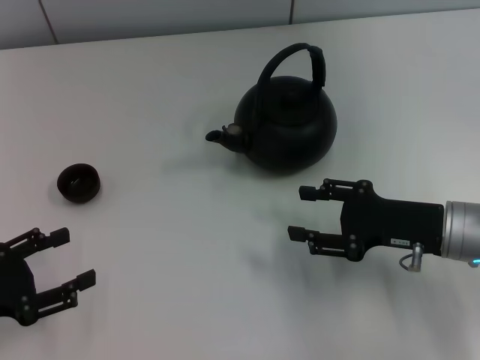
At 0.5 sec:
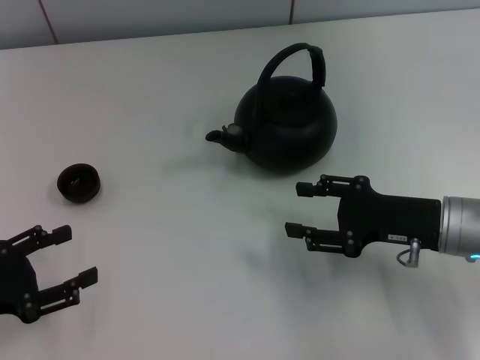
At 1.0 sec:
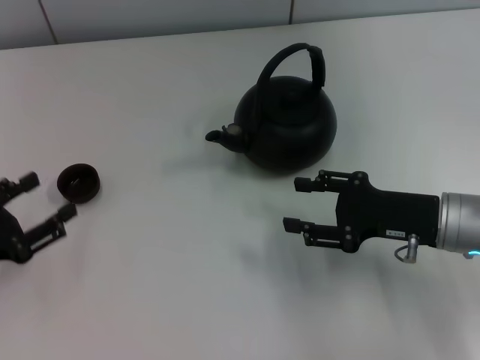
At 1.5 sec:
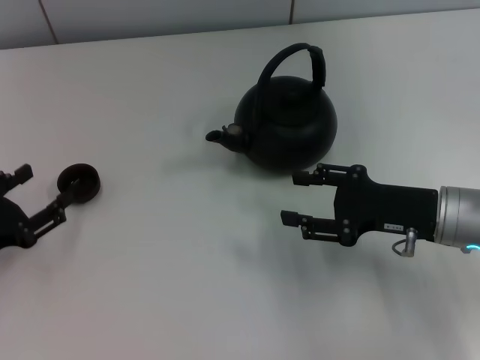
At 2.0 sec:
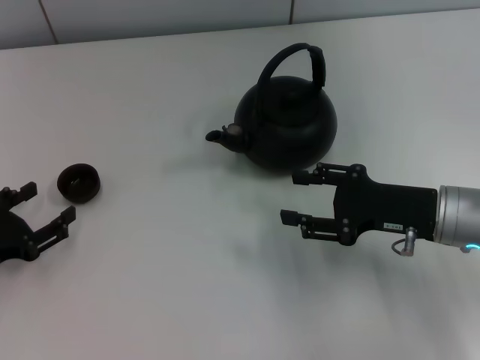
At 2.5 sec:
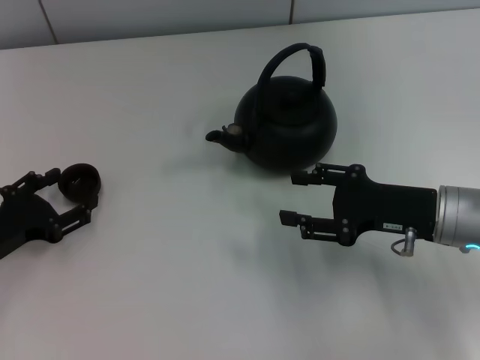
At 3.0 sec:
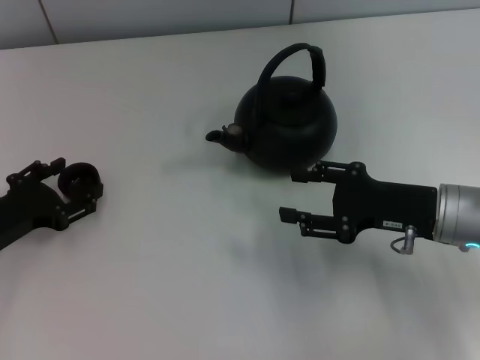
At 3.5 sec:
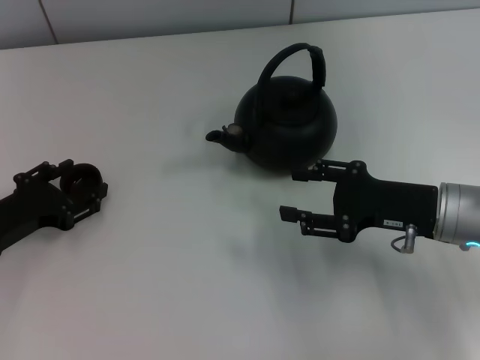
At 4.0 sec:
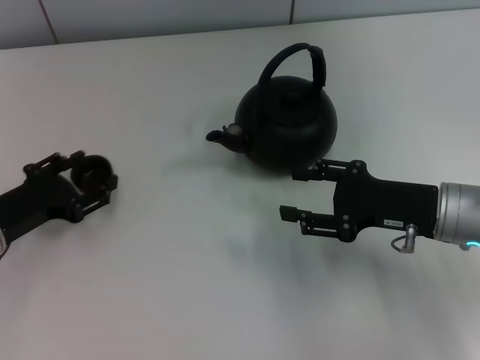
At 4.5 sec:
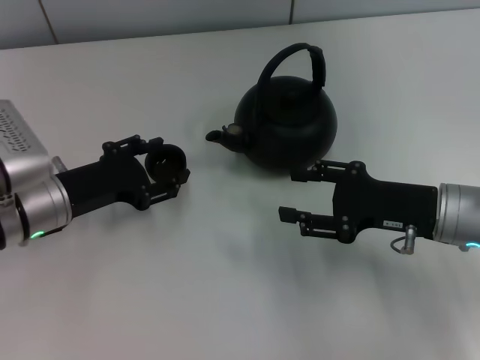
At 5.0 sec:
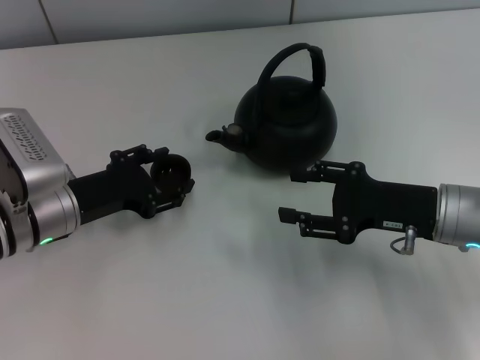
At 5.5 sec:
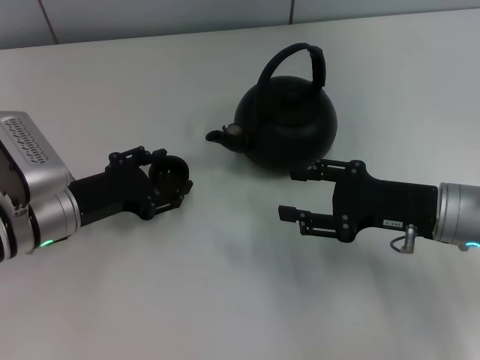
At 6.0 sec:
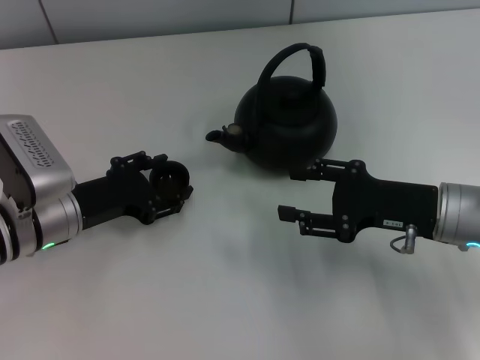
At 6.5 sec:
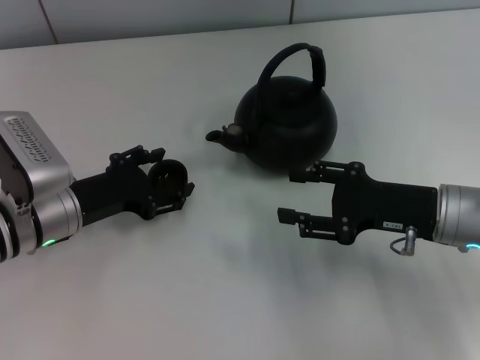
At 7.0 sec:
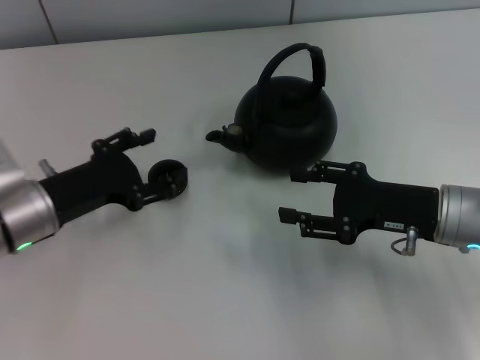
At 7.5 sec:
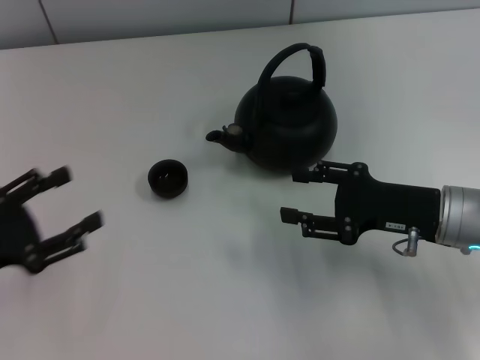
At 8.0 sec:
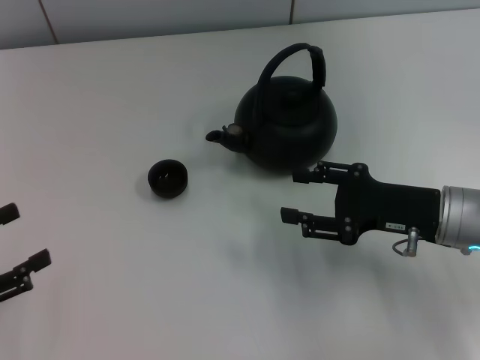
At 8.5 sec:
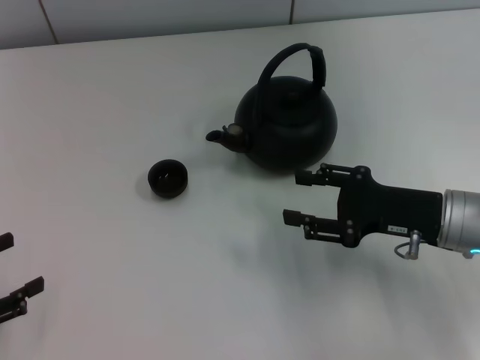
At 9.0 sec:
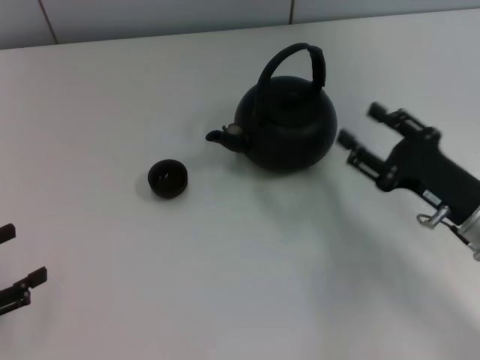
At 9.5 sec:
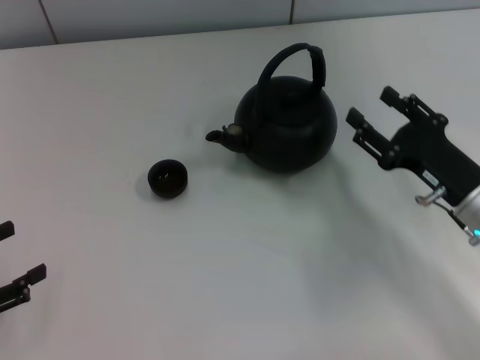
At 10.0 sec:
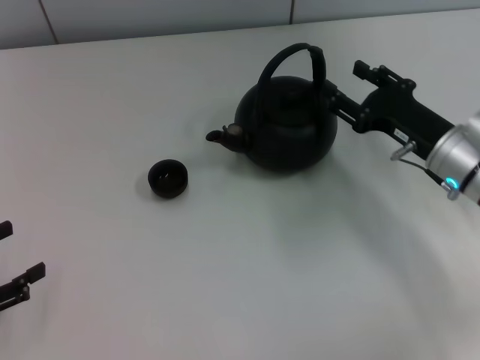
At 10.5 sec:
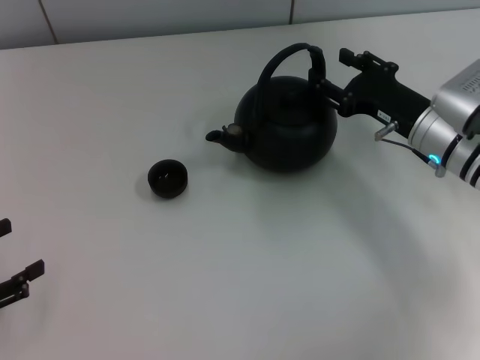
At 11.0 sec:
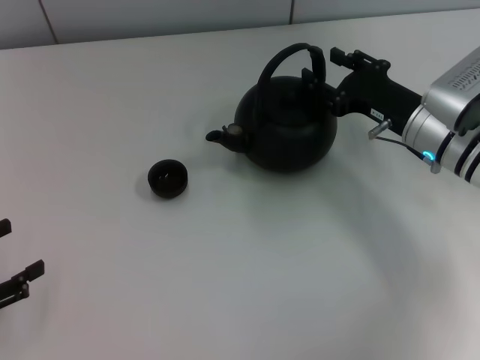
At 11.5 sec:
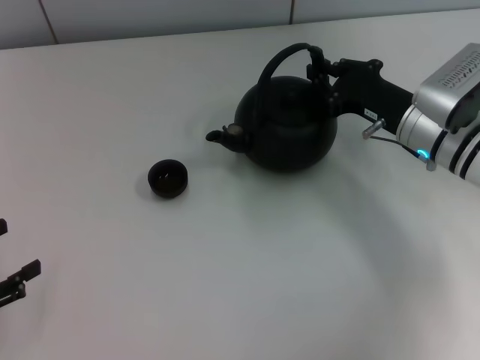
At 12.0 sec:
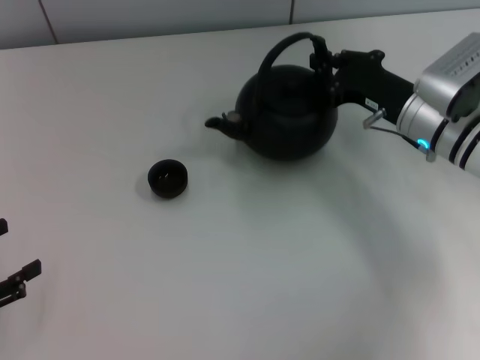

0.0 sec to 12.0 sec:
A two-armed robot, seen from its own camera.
Task of the whole recording: Grasp the handle of the teapot with one hand and pour tea into the teacup.
Step, 0.0 sec to 4.0 sec: Pick up the teacup with the left gripper.
Step, 4.5 sec to 7.0 sec: Place the teacup in the center of view with the left gripper.
2.0 sec to 4.0 sec: The left gripper ends up about 5 cm from where it was.
4.0 sec to 6.0 sec: The left gripper shifts approximately 5 cm to the right.
6.0 sec to 8.0 sec: The left gripper heads to the left and backward, covering roughly 20 cm.
8.0 sec to 10.0 sec: The right gripper travels forward by about 5 cm.
10.0 sec to 12.0 sec: The right gripper shifts by approximately 5 cm, and closes.

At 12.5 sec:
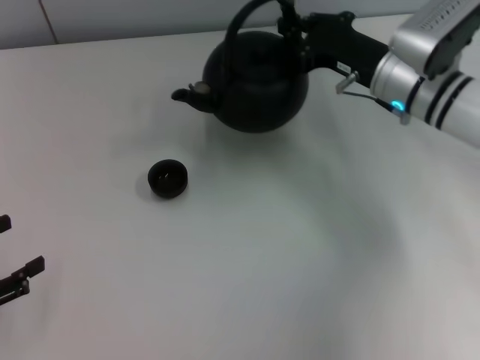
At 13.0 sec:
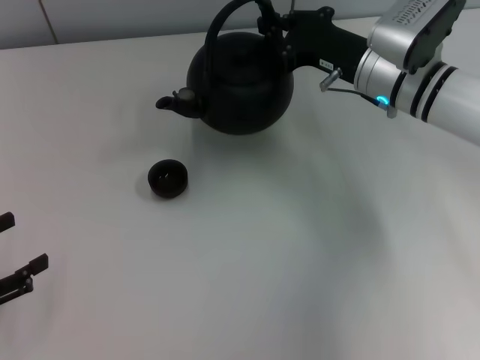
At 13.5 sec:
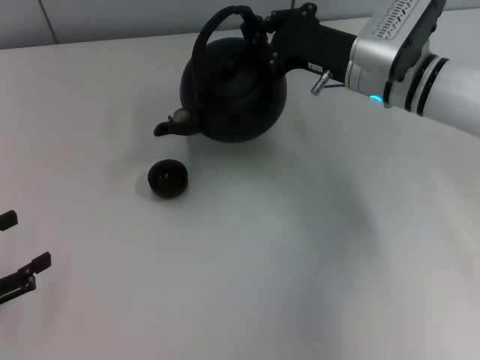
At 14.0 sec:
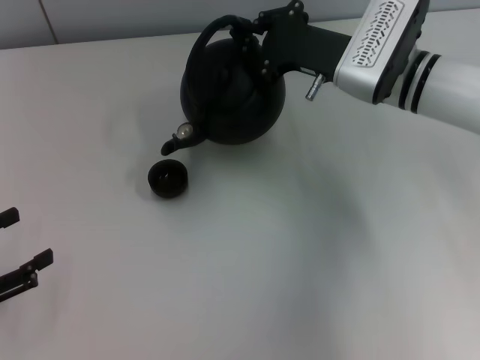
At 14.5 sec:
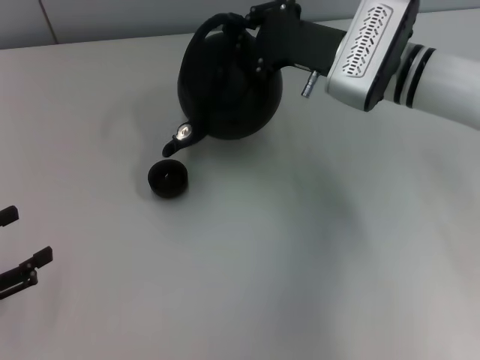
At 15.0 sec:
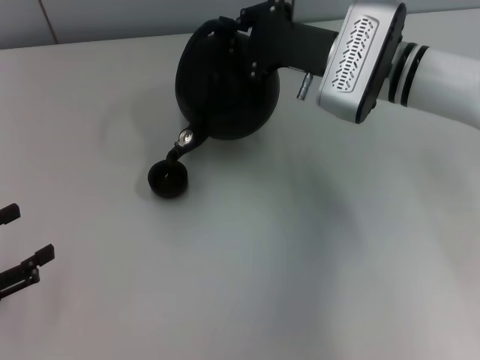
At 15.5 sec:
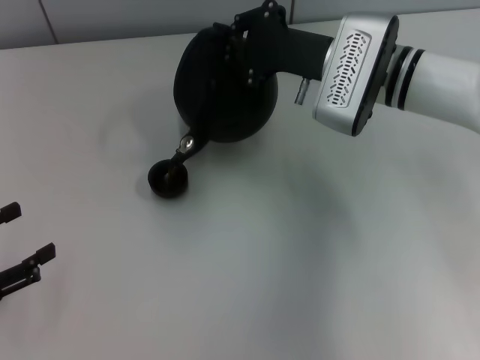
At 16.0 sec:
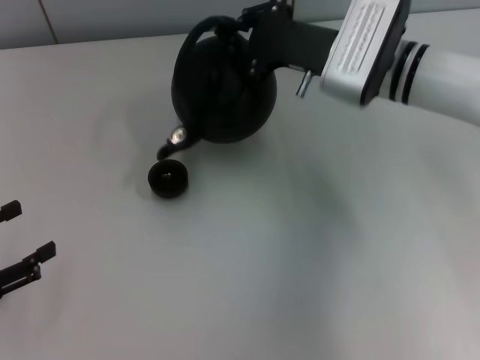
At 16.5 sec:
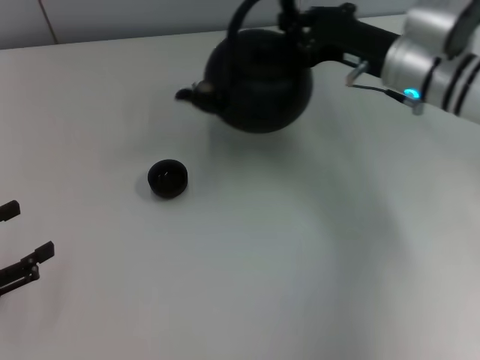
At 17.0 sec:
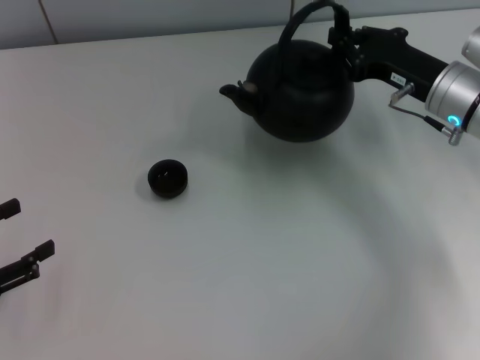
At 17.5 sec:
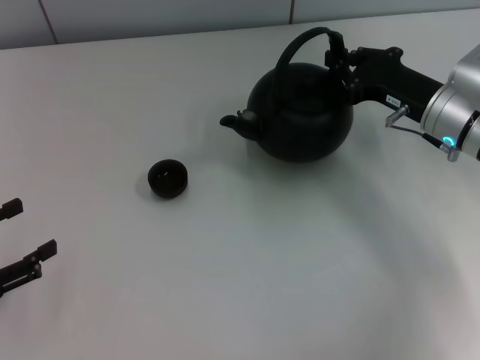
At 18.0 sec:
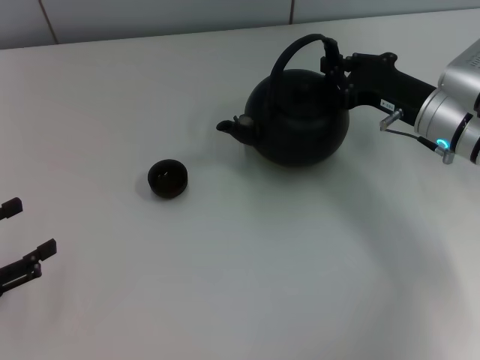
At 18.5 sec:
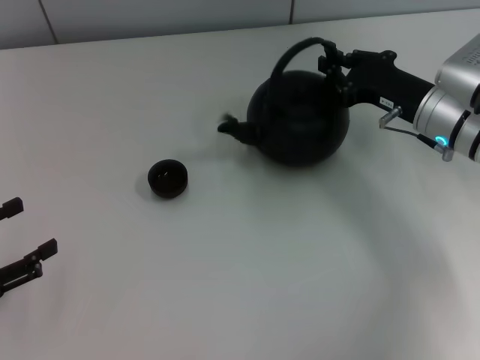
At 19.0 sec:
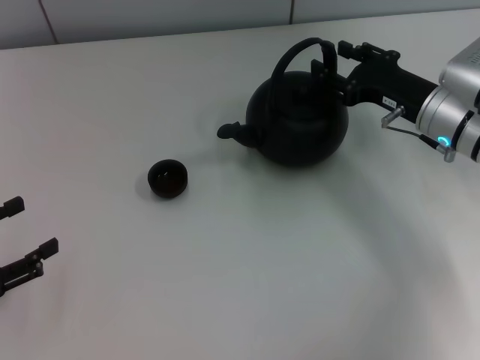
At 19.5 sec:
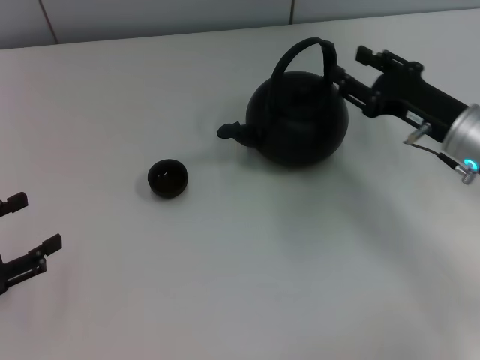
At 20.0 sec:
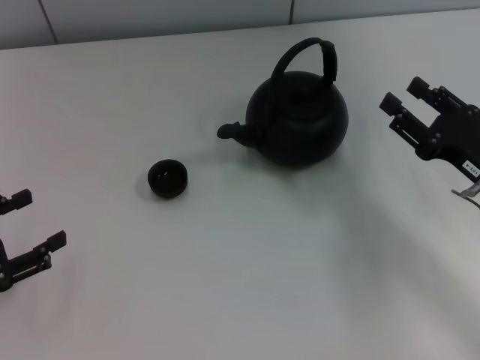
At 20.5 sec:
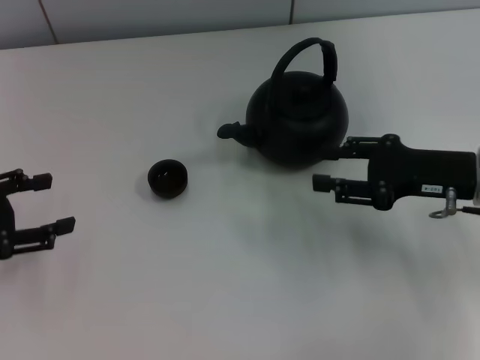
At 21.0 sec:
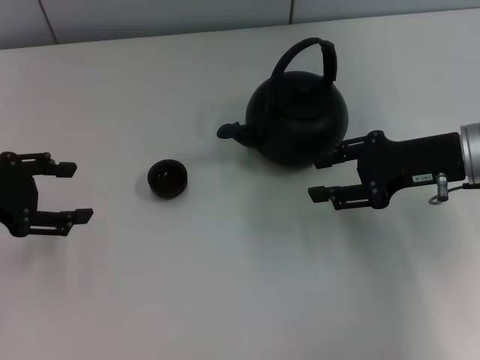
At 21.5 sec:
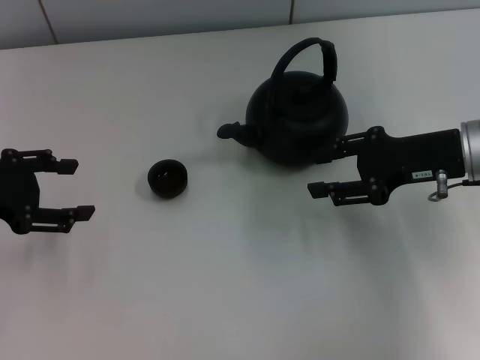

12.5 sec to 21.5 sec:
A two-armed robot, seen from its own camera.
Task of the whole recording: Grasp the handle of the teapot with one hand and pour tea into the teacup.
Step, 17.0 sec to 19.5 sec: Put down the teapot with the right gripper.
14.5 sec to 17.0 sec: The right gripper shifts about 10 cm to the right.
17.0 sec to 19.5 sec: The right gripper shifts by roughly 5 cm, and opens.
19.5 sec to 21.5 sec: The left gripper shifts roughly 15 cm forward and upward.
